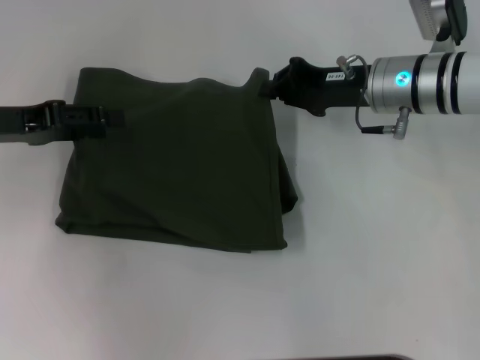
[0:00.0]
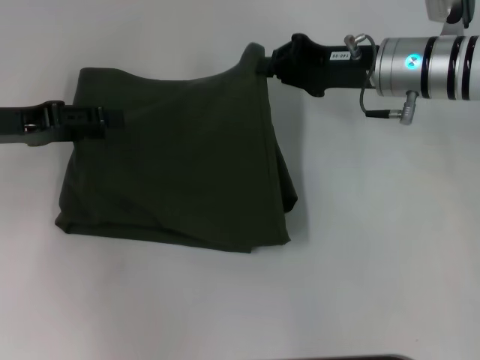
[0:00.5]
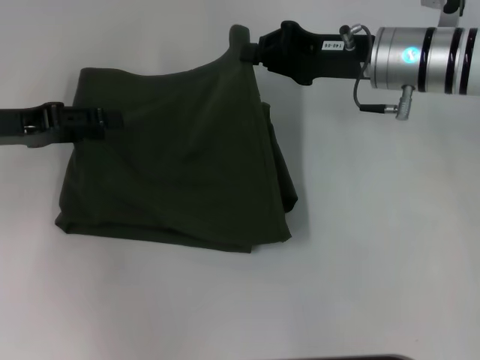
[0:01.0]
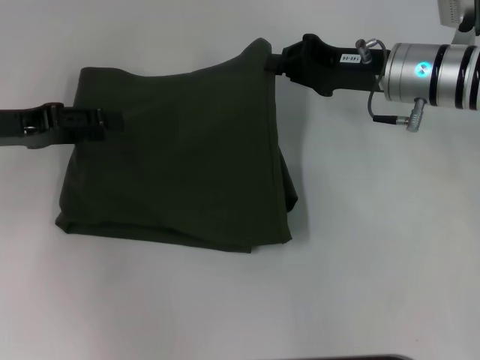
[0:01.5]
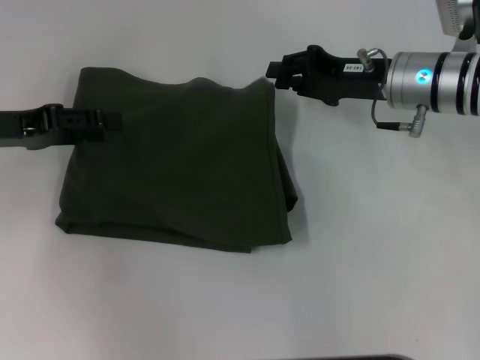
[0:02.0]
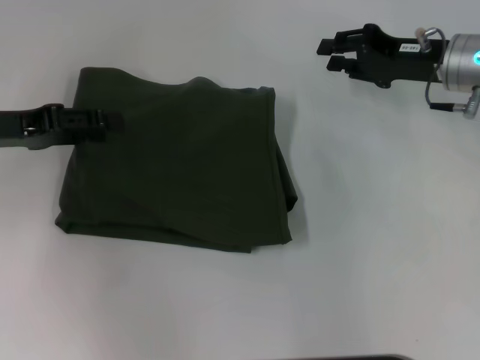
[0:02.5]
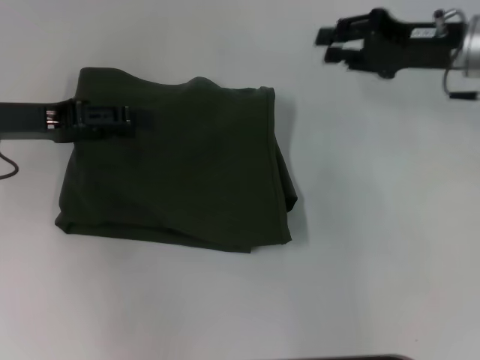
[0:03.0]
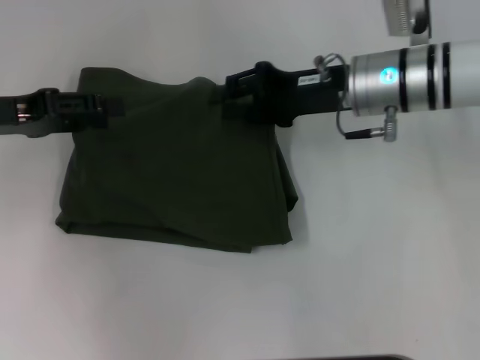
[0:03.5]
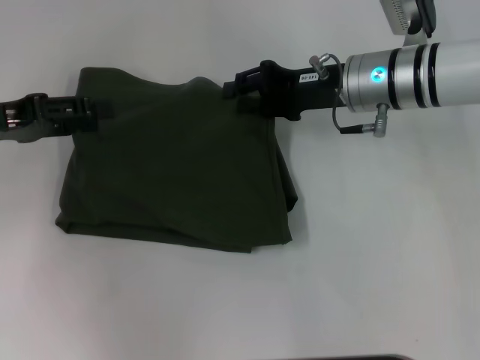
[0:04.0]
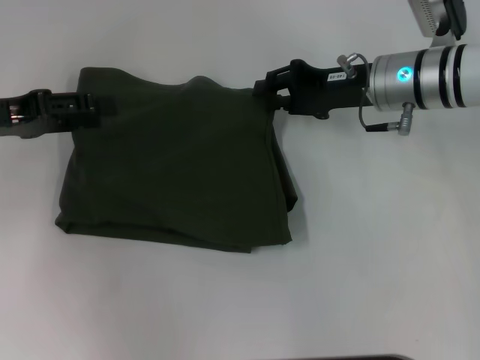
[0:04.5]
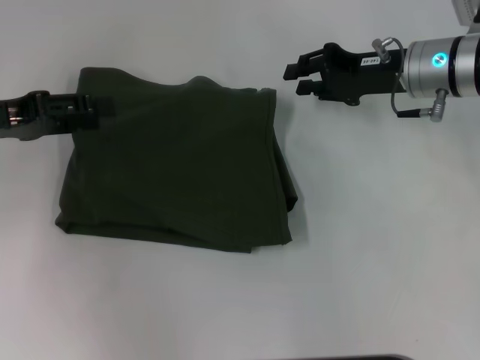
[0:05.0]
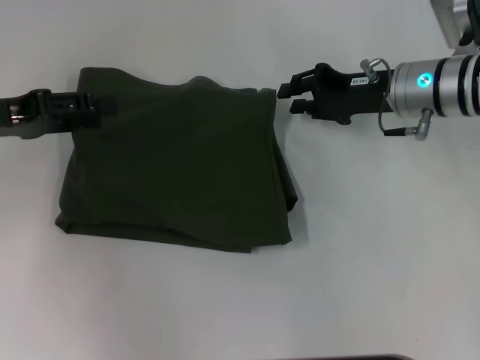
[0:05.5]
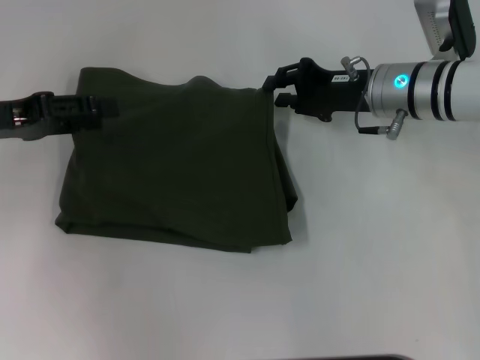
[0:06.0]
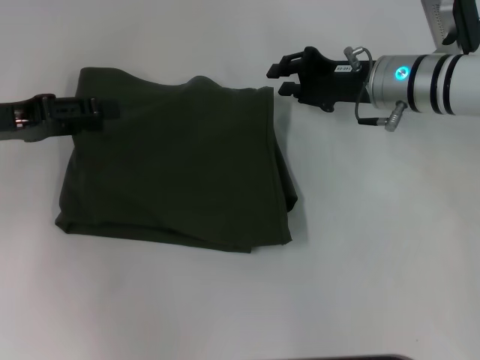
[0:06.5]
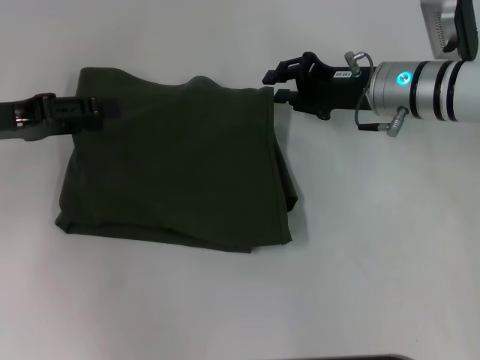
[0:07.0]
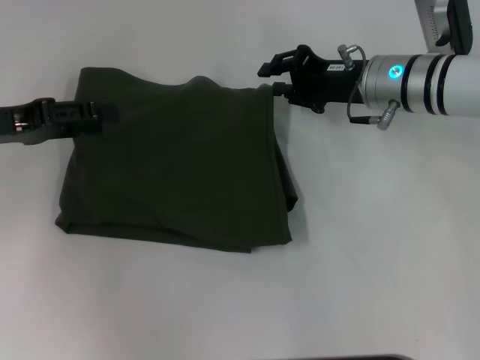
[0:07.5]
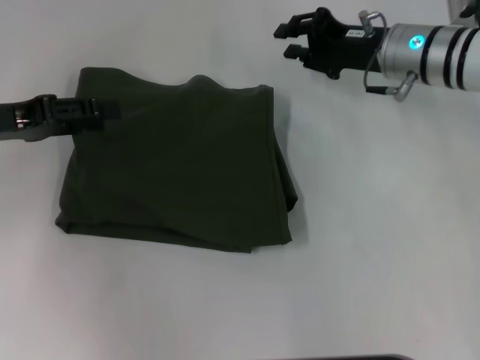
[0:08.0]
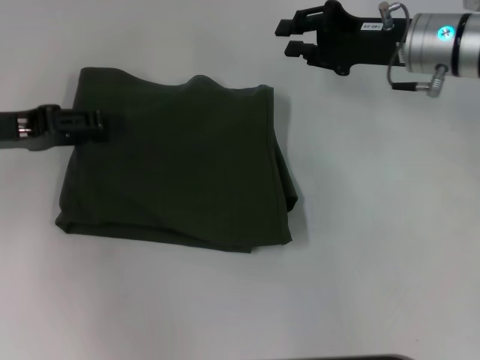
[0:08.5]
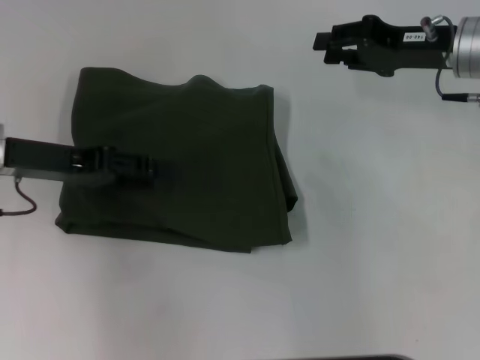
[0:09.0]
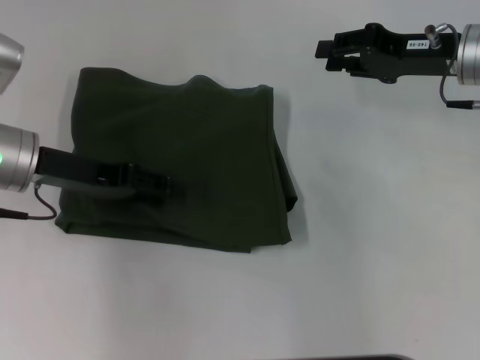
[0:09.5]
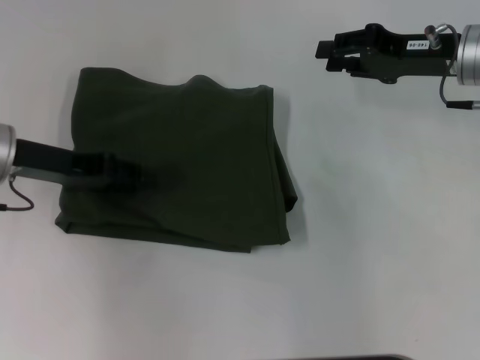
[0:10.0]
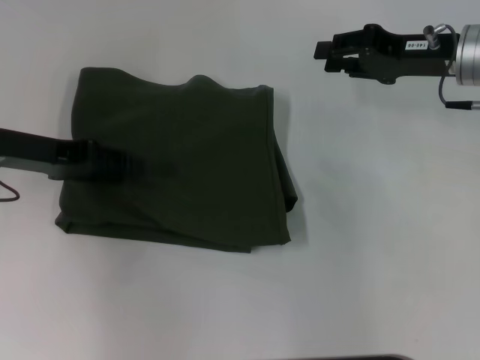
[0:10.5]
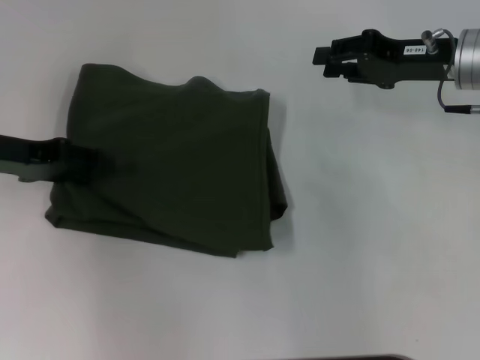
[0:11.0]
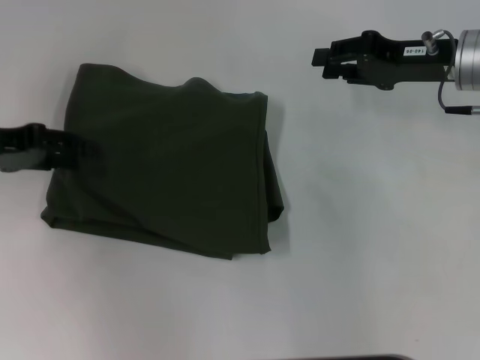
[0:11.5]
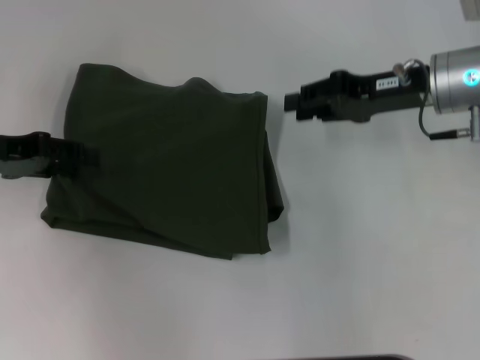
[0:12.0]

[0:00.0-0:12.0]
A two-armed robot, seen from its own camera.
0:00.0 to 0:02.0: The grippers make only small movements.
0:04.0 to 0:06.0: The grippers move only a little.
0:06.0 to 0:08.0: The grippers stay close to where they were, moving slightly.
0:08.0 to 0:10.0: The left gripper moves some 5 cm; the right gripper shifts approximately 5 cm to the right.
0:10.0 to 0:12.0: The left gripper moves to the left, about 5 cm.

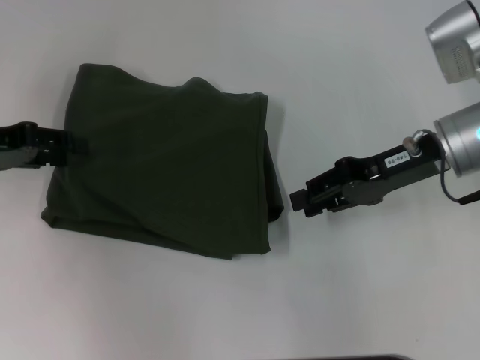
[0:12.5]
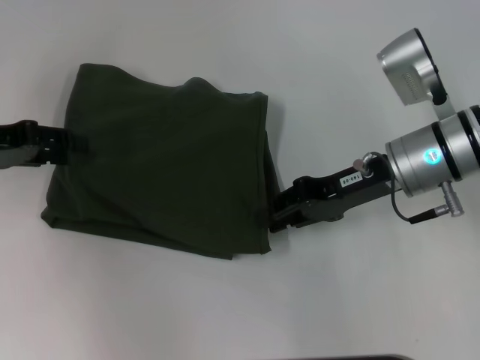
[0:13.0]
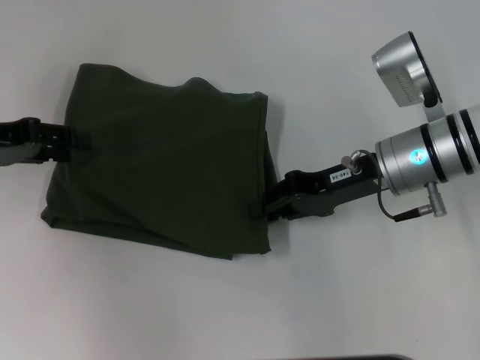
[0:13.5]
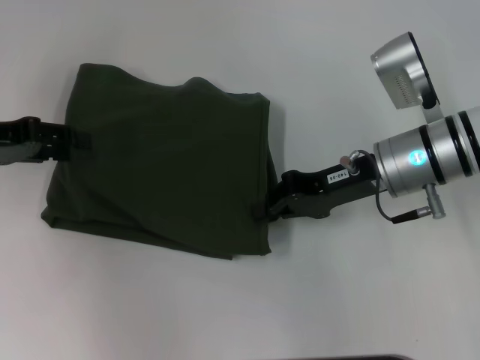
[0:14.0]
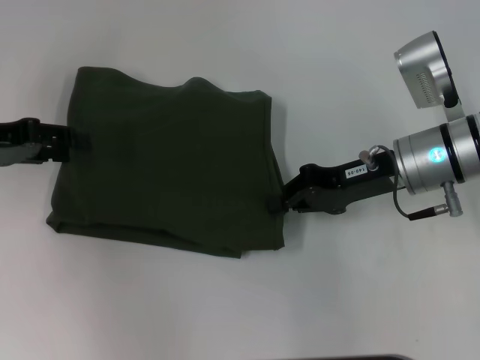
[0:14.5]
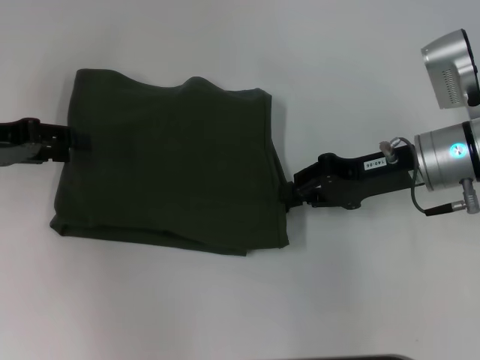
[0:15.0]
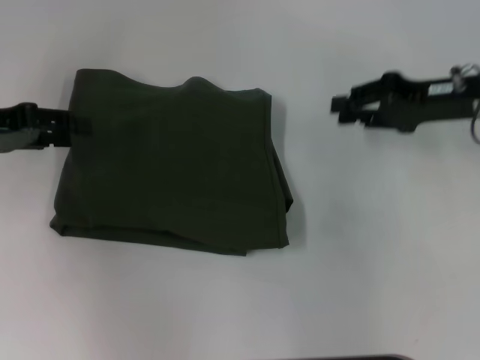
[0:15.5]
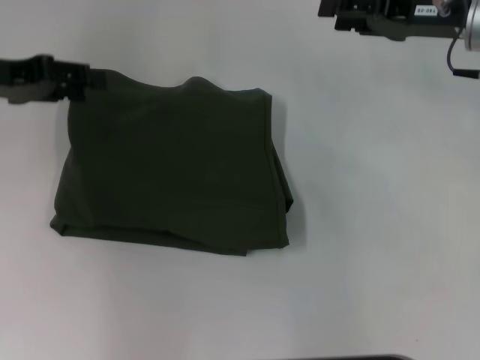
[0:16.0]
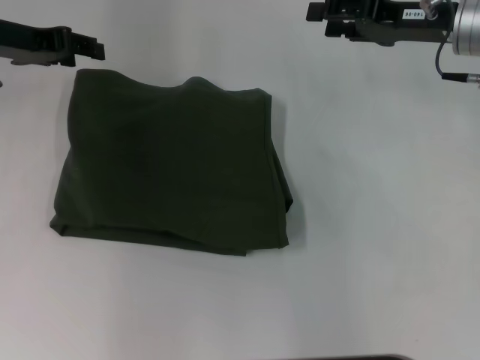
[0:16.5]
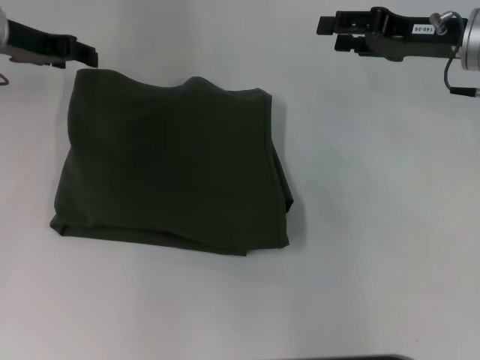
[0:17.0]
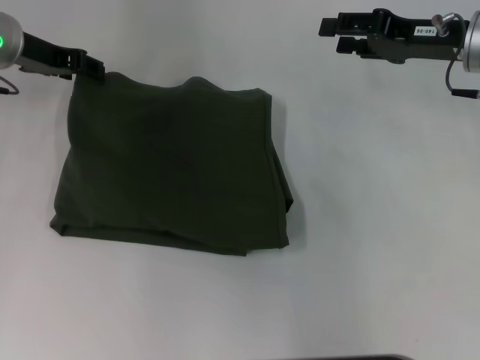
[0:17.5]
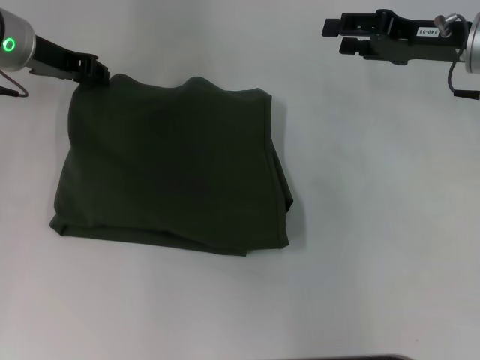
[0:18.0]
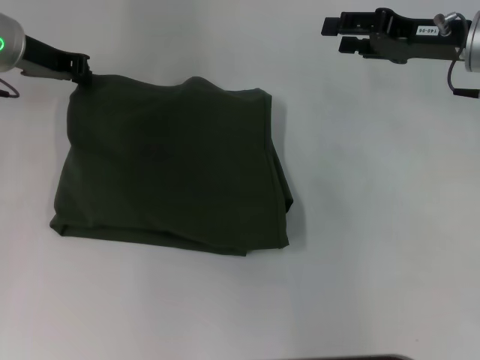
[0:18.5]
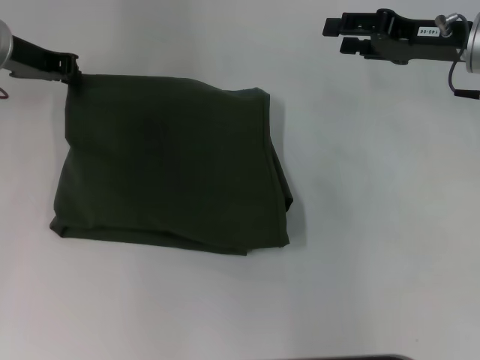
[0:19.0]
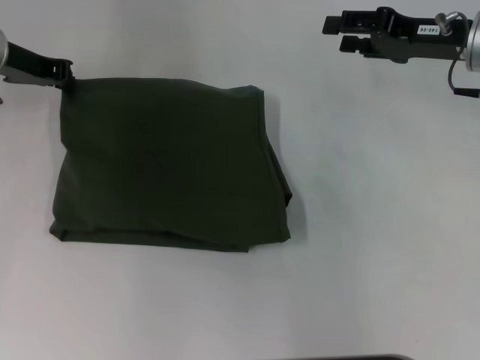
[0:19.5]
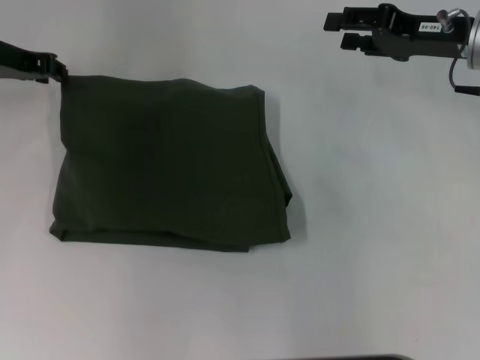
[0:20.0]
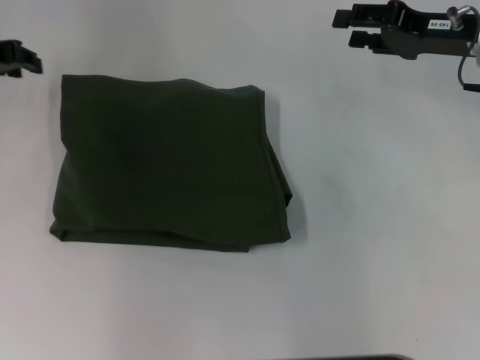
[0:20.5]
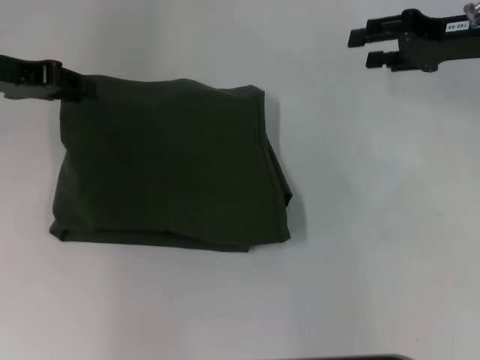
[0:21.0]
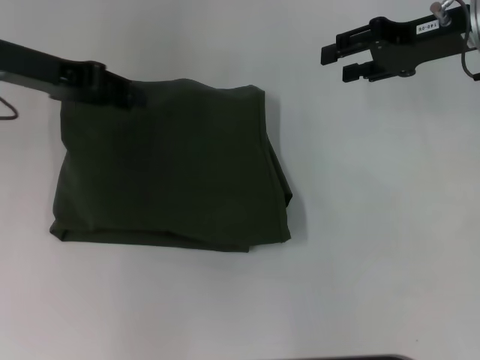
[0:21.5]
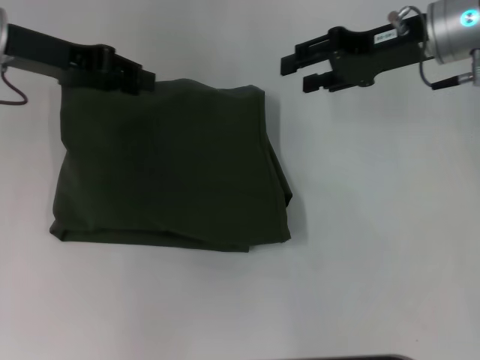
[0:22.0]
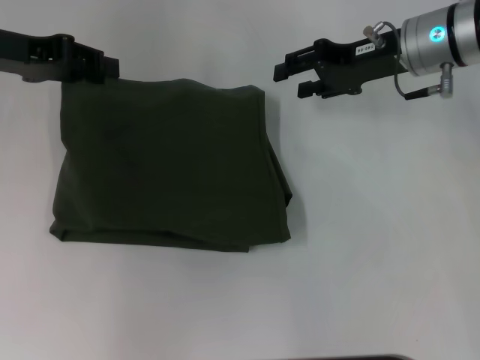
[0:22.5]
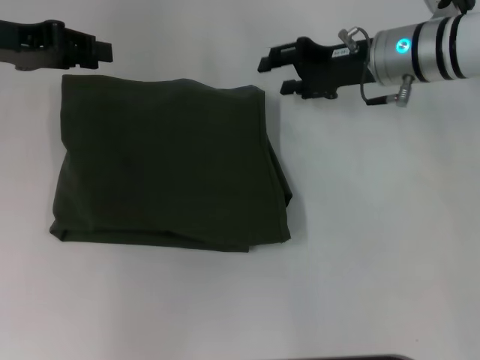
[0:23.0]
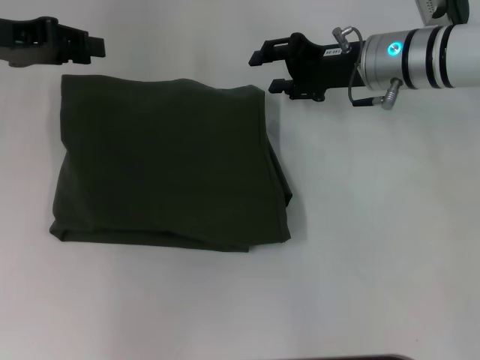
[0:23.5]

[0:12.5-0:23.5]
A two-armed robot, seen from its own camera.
0:12.5 to 0:14.5: The right gripper closes up.
0:14.5 to 0:16.0: The right gripper shifts about 10 cm forward, upward and to the right, and opens up.
0:16.0 to 0:18.0: The left gripper heads forward and to the right, covering about 10 cm.
0:18.0 to 0:20.0: The left gripper closes up.
0:20.0 to 0:21.5: The left gripper moves about 5 cm.
0:21.5 to 0:23.5: The right gripper goes some 10 cm to the left and downward.

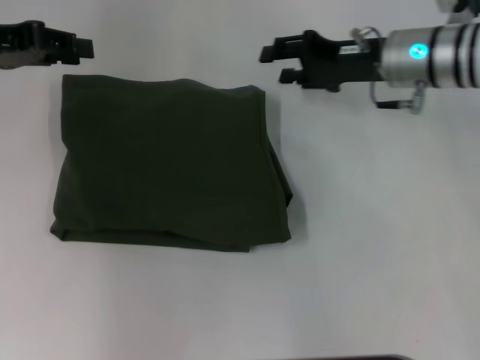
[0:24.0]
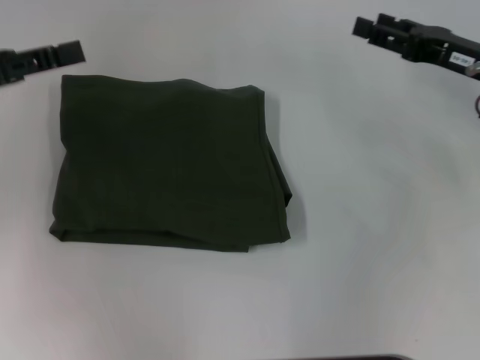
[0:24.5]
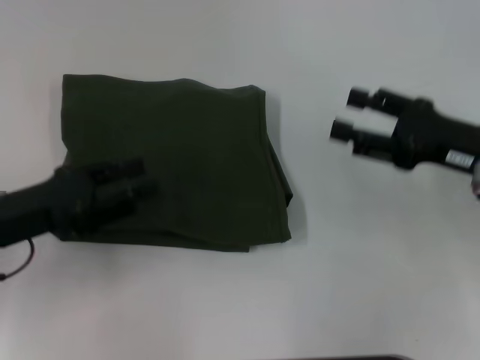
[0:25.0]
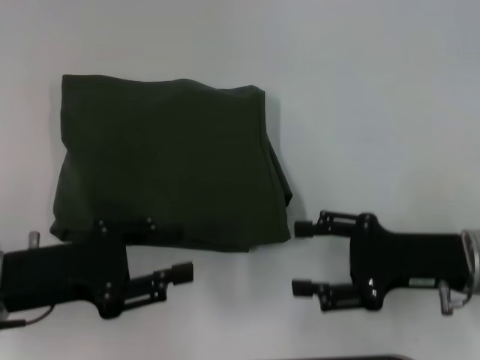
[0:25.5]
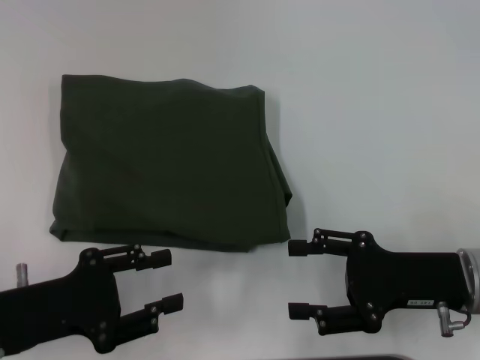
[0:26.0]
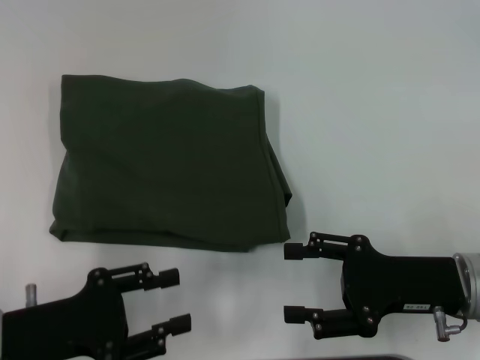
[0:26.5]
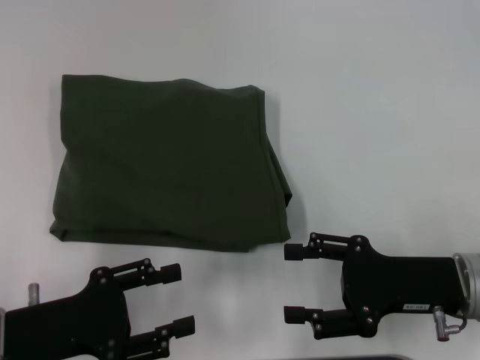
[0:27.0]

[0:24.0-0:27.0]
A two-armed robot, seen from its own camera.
0:24.0 to 0:25.5: The right gripper heads backward, covering approximately 15 cm, while the left gripper shifts some 20 cm backward and downward.
0:25.5 to 0:27.0: The left gripper ends up about 5 cm from where it was.
